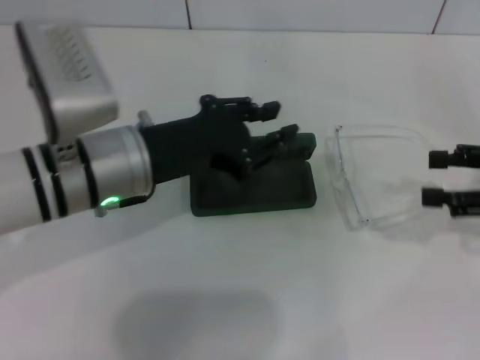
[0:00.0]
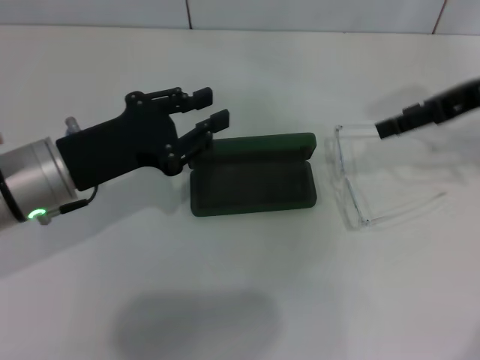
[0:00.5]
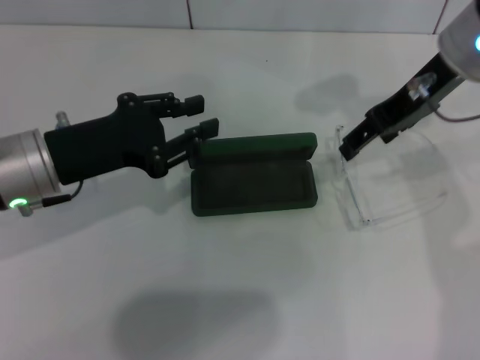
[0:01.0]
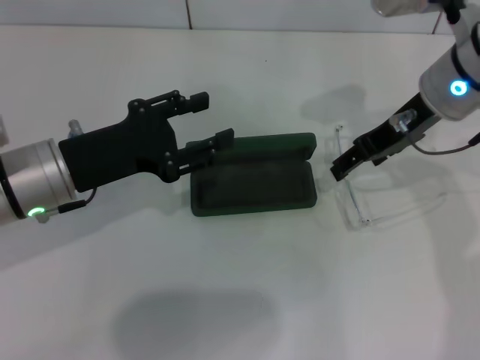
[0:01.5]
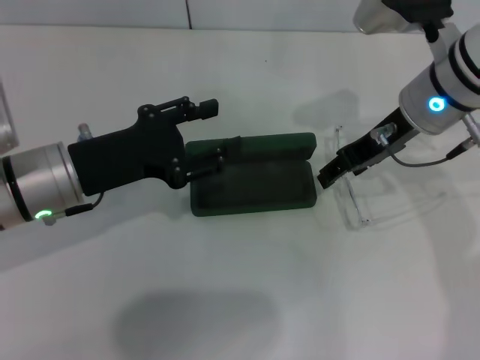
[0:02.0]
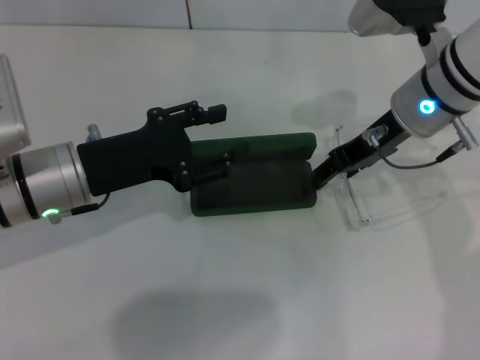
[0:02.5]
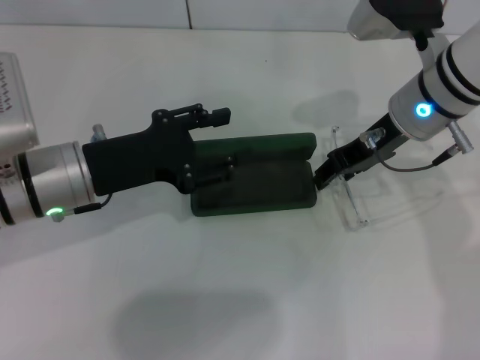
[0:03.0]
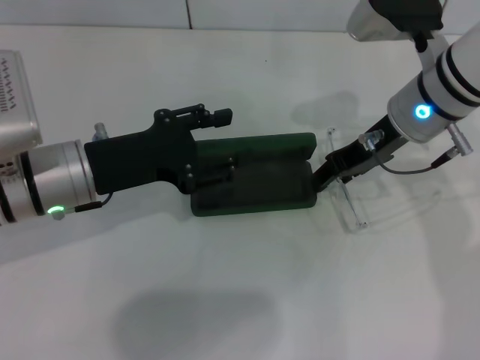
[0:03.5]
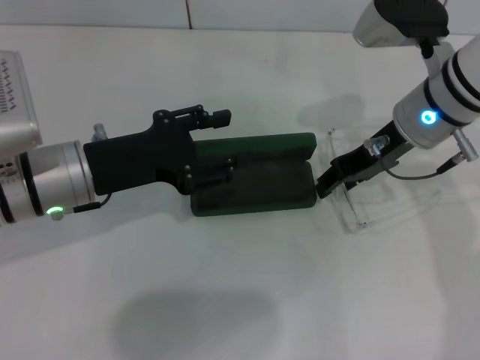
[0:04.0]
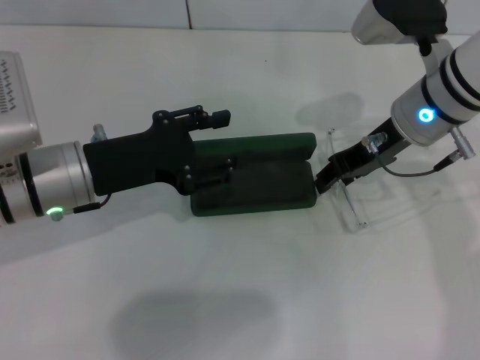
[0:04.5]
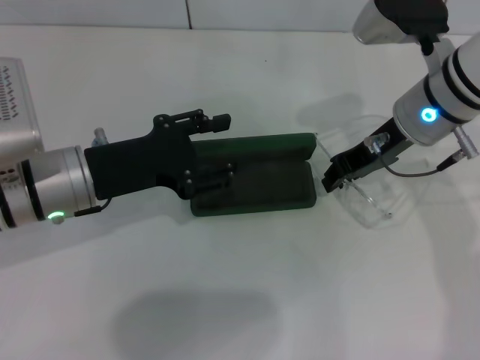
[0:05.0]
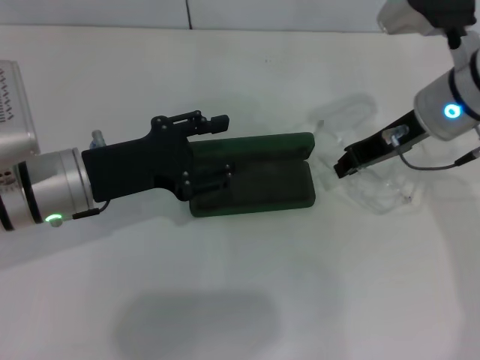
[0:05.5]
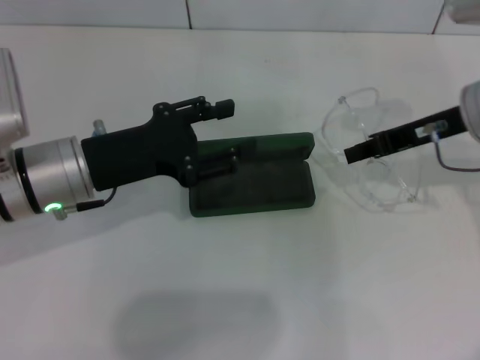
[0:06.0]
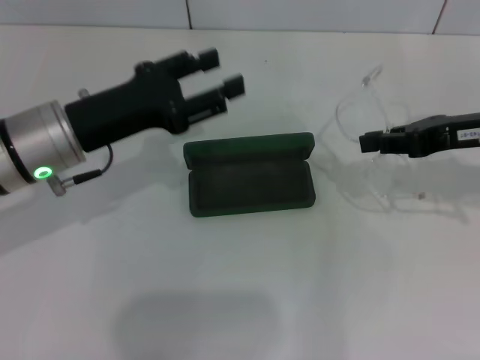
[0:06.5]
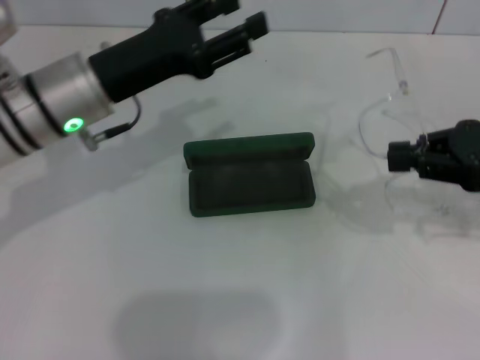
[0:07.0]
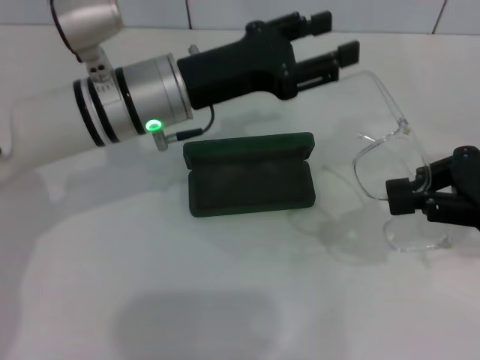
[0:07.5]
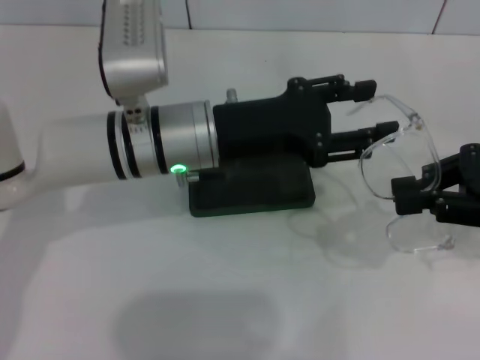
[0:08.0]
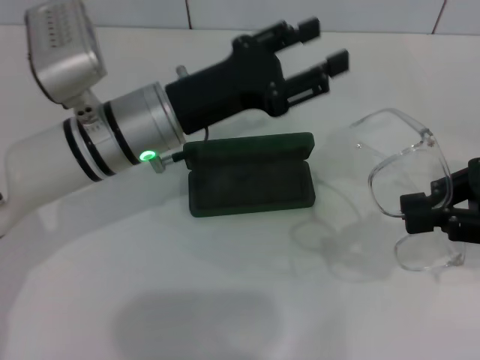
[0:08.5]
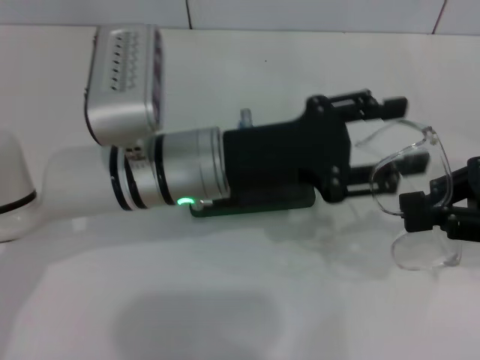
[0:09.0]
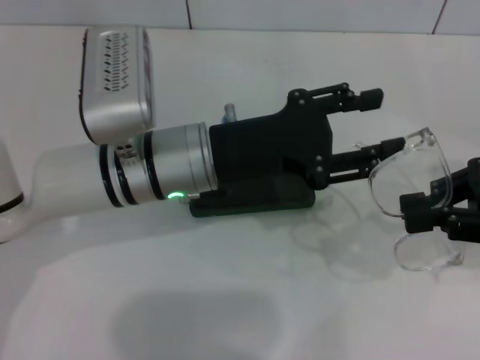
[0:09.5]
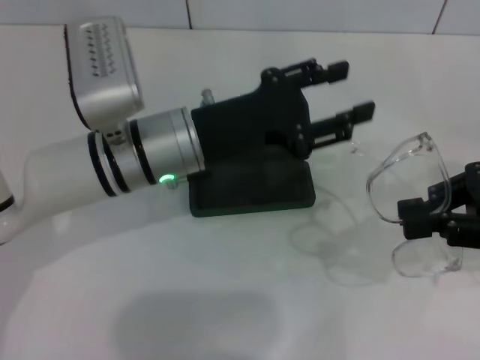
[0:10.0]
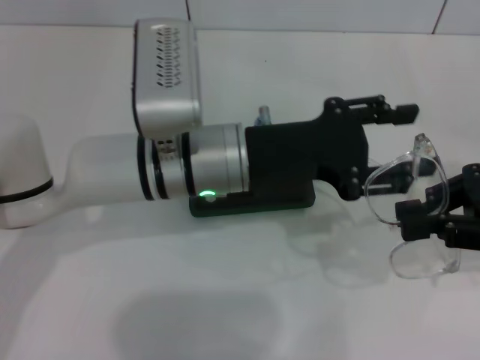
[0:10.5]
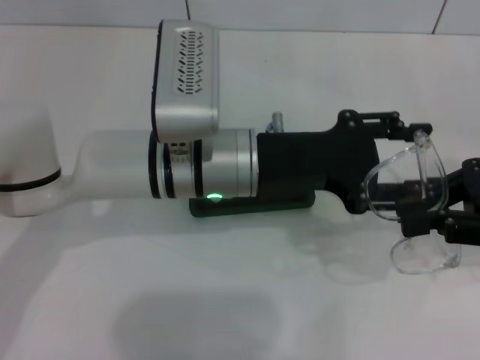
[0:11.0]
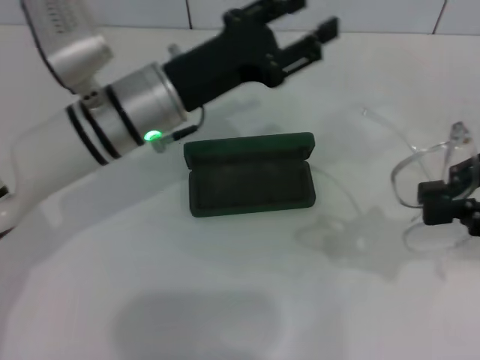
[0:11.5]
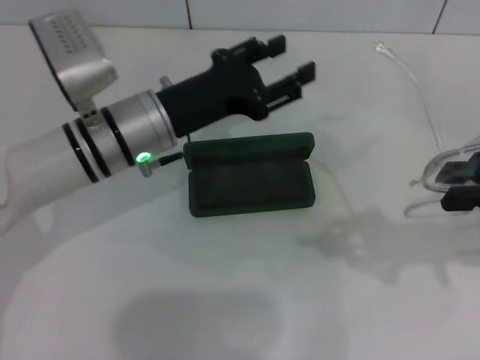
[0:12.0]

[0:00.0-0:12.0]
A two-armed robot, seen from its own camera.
Step, 0:00.0 to 0:05.0: Grab the eyeglass frame with your right hand.
0:00.0 to 0:02.0: The right gripper is displaced to the left and forward by roughly 20 cm; the left gripper travels to the left by some 5 cm, and opens.
0:02.0 to 0:04.0: There are only small adjustments of the grippers.
0:04.0 to 0:06.0: The right gripper heads to the right, covering about 5 cm, and closes.
0:06.0 to 0:08.0: The left gripper goes roughly 10 cm to the right. Meanwhile the right gripper goes approximately 10 cm backward and to the right.
0:08.0 to 0:10.0: The grippers move only a little.

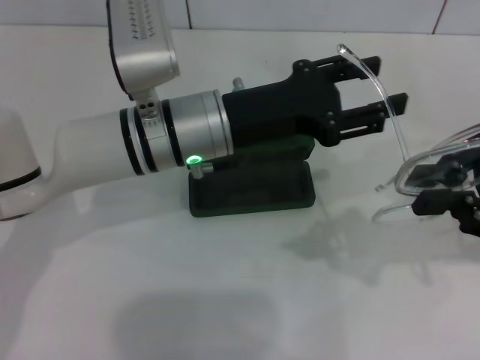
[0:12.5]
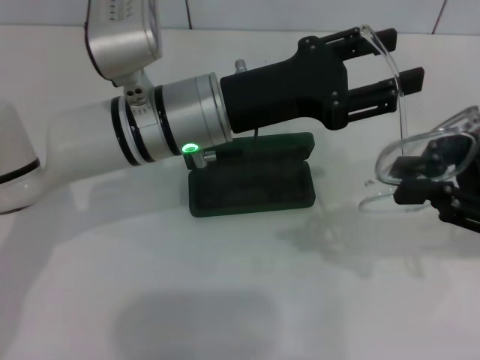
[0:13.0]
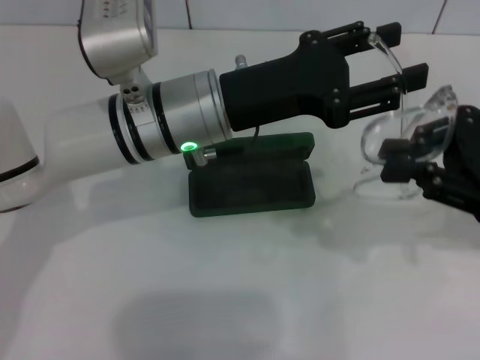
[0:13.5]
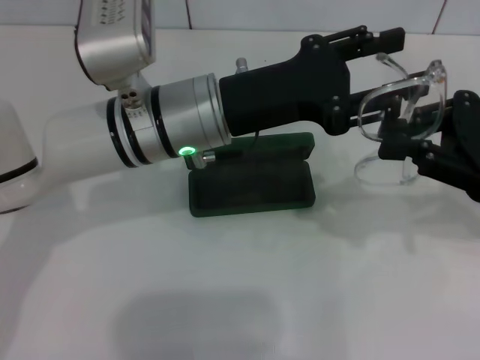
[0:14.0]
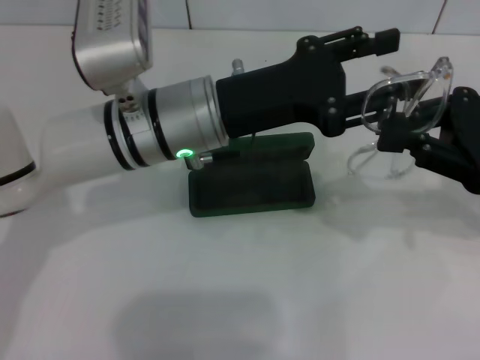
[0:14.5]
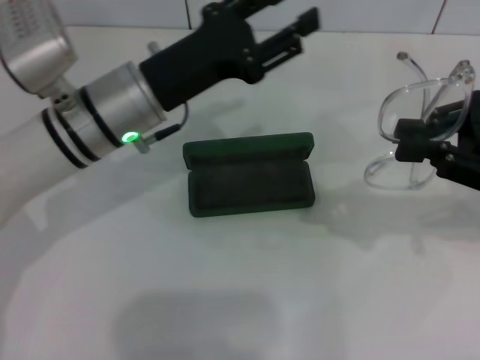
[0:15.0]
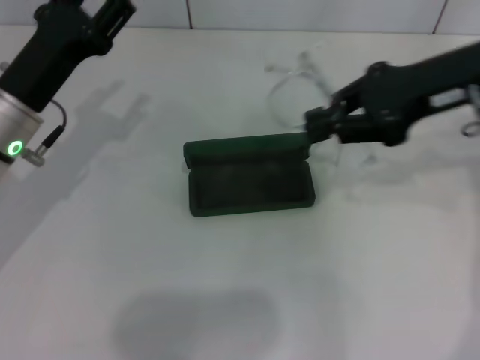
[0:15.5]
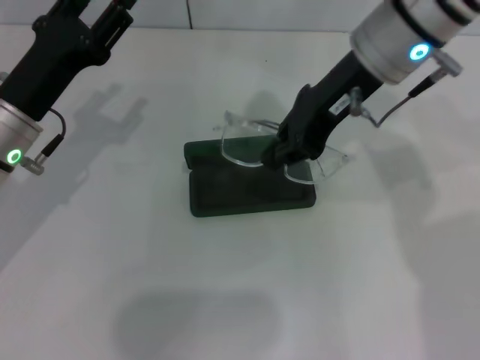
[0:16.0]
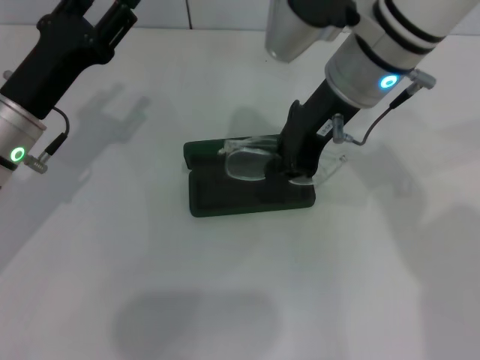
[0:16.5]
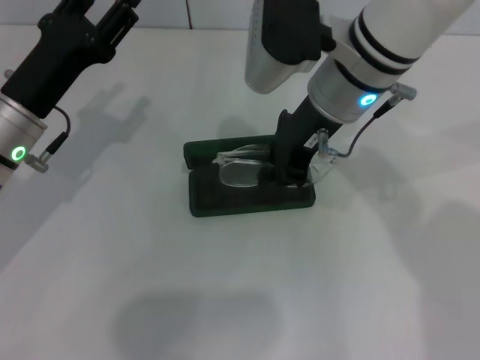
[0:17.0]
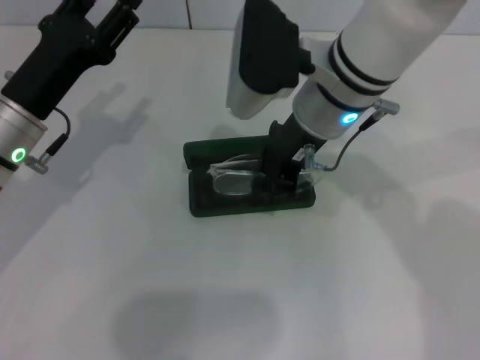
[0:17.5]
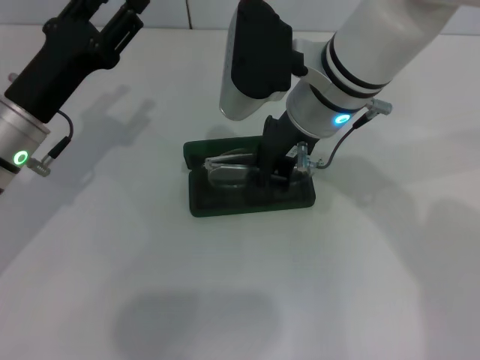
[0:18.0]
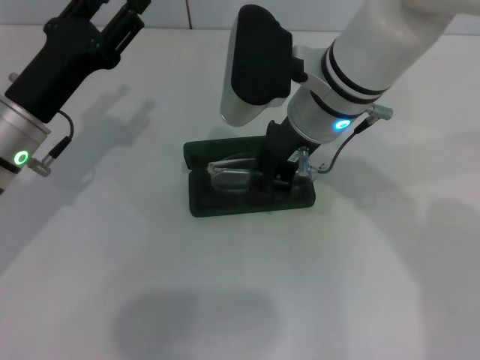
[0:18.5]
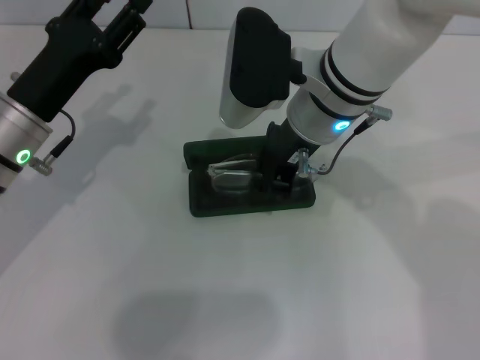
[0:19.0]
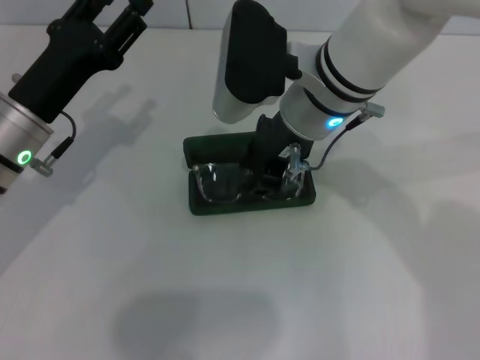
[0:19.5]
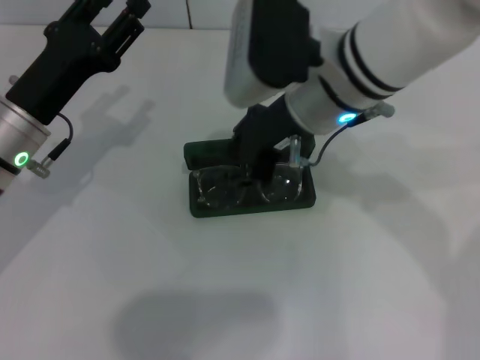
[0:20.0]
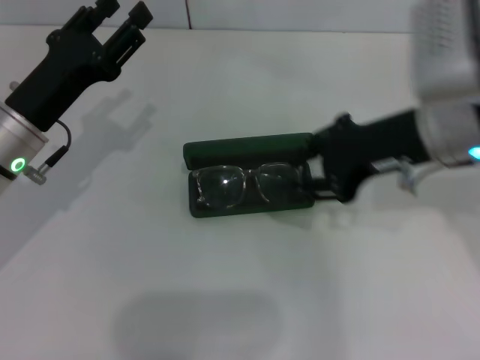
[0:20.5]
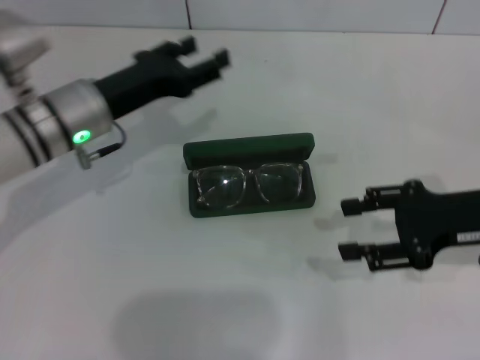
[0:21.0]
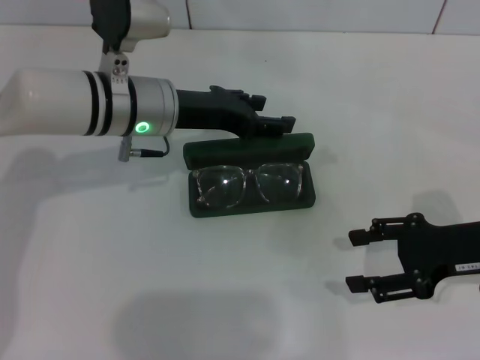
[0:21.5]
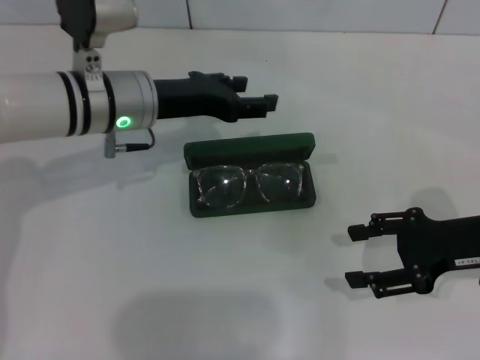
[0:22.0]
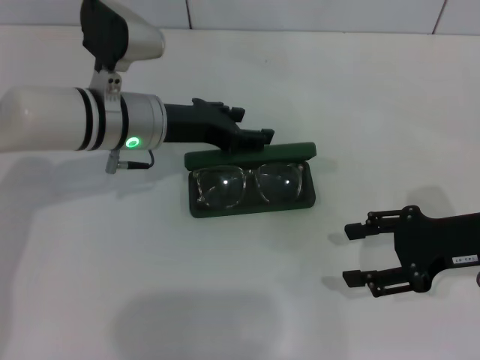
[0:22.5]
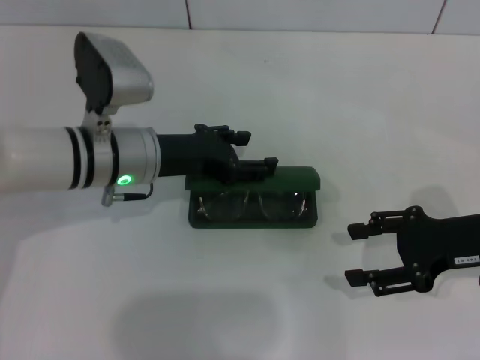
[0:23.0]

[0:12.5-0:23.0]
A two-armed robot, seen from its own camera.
Step, 0:15.0 to 0:19.5: Put the glasses into the case with your right hand.
0:14.5 to 0:16.5: The left gripper heads to the left, covering roughly 15 cm, while the right gripper is displaced to the left and forward by some 20 cm.
0:16.5 to 0:19.0: The right gripper shifts by roughly 5 cm.
0:19.0 to 0:21.0: The left gripper shifts by some 5 cm. Meanwhile the right gripper heads to the right, covering approximately 20 cm, and opens.
0:21.0 to 0:23.0: The right gripper opens its fingers.

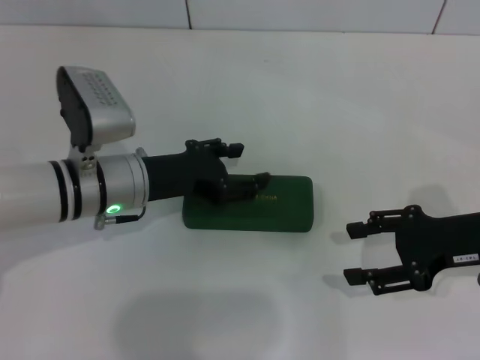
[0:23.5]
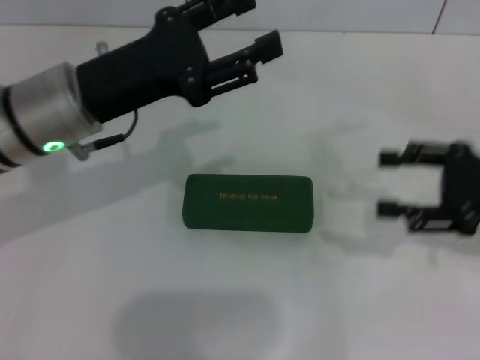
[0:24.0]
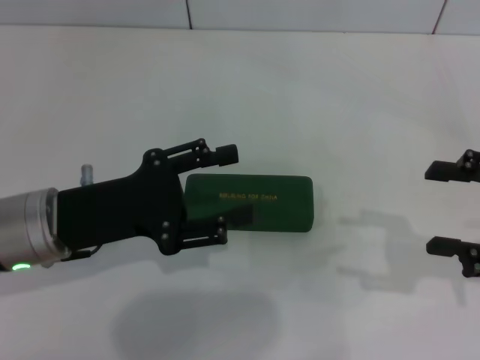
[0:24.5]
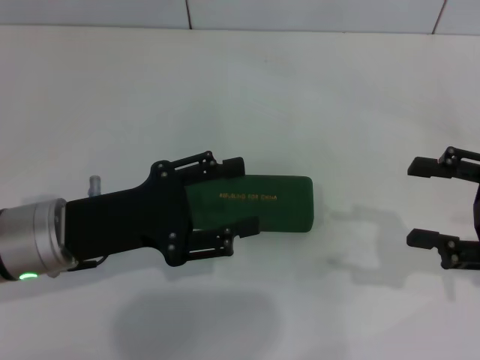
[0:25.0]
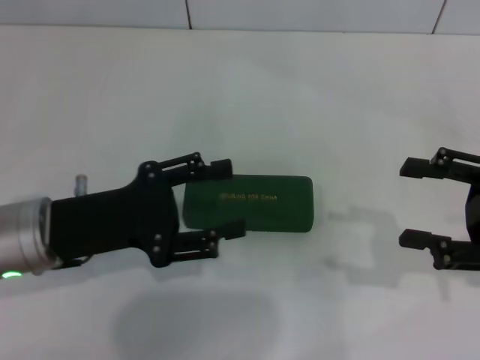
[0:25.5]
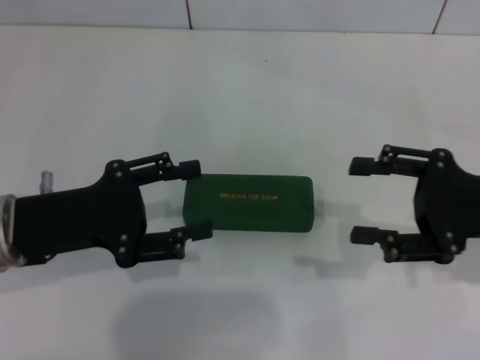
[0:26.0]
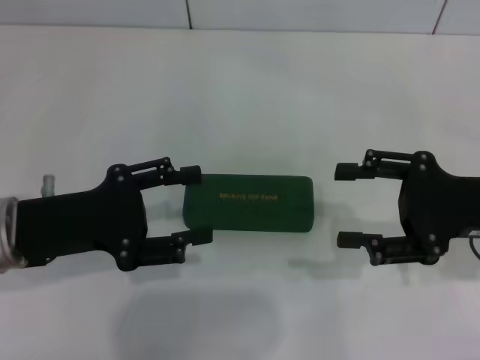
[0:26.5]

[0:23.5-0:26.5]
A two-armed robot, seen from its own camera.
0:23.5 to 0:25.0: The left gripper goes some 10 cm backward, and moves approximately 10 cm upward and comes back; the right gripper shifts by approximately 5 cm.
0:25.0 to 0:26.5: The right gripper is displaced to the left by some 5 cm.
